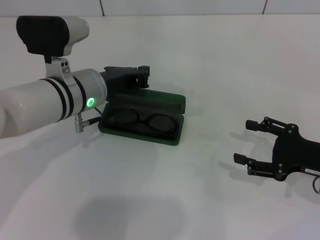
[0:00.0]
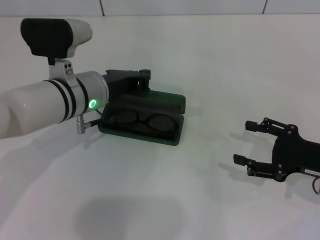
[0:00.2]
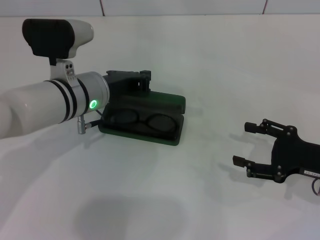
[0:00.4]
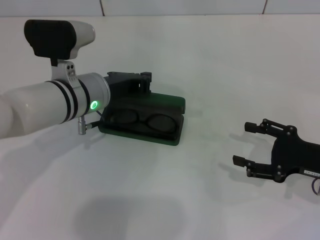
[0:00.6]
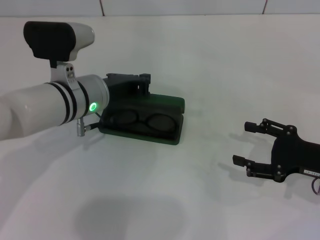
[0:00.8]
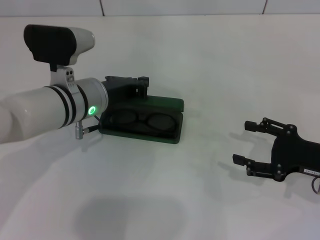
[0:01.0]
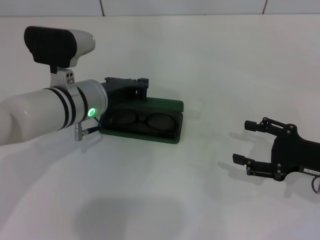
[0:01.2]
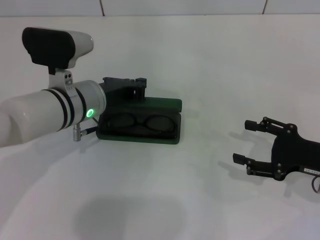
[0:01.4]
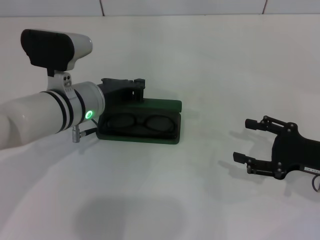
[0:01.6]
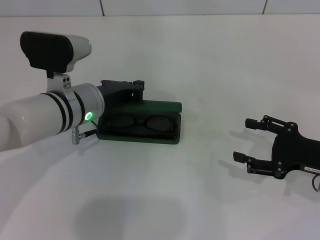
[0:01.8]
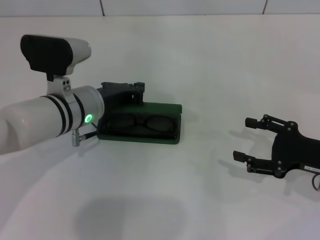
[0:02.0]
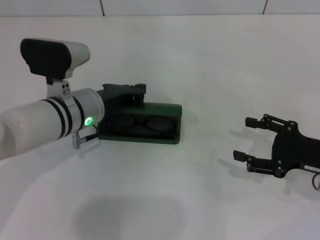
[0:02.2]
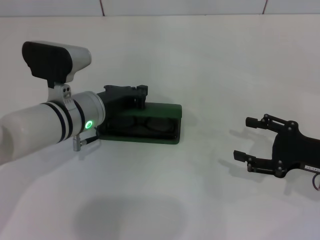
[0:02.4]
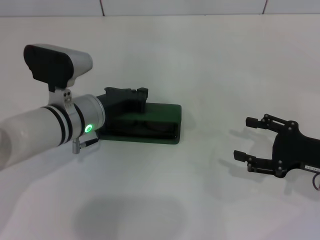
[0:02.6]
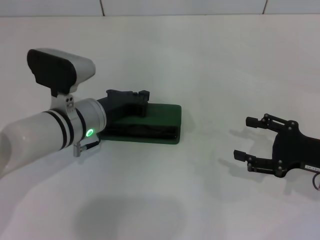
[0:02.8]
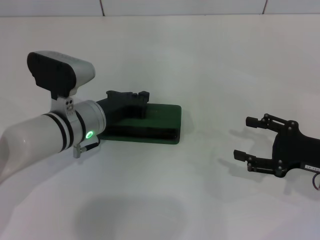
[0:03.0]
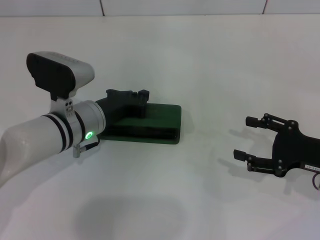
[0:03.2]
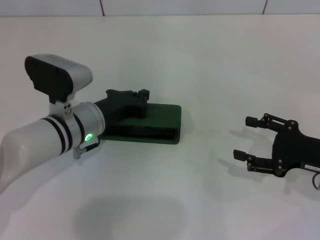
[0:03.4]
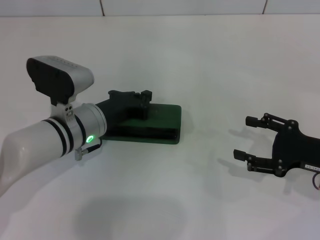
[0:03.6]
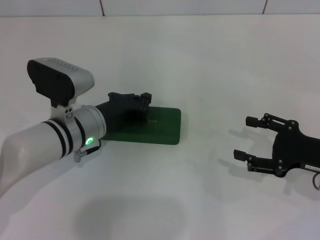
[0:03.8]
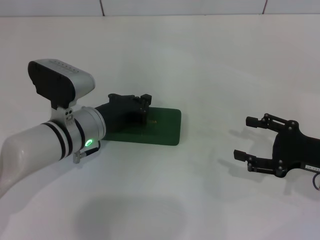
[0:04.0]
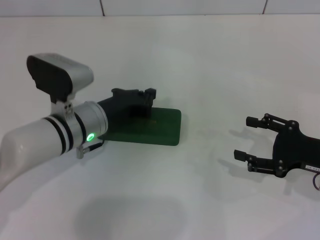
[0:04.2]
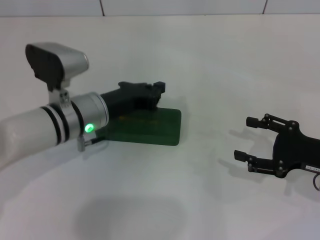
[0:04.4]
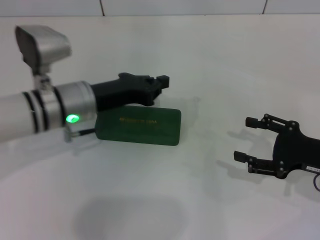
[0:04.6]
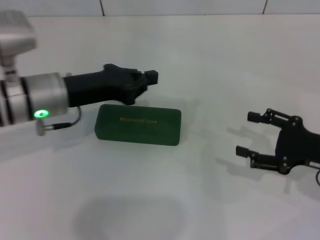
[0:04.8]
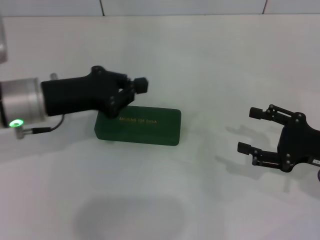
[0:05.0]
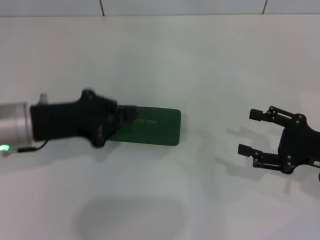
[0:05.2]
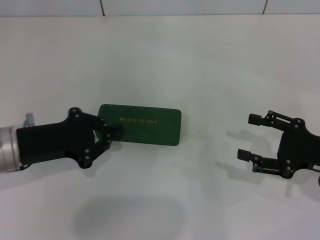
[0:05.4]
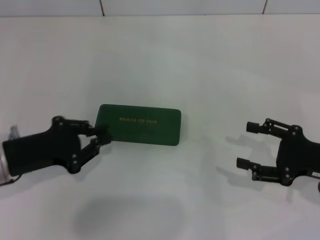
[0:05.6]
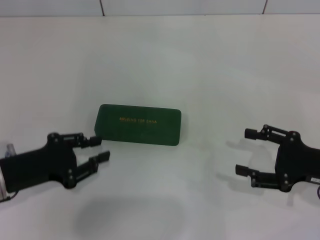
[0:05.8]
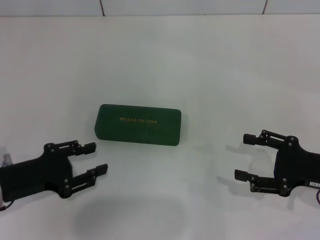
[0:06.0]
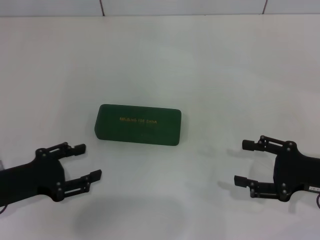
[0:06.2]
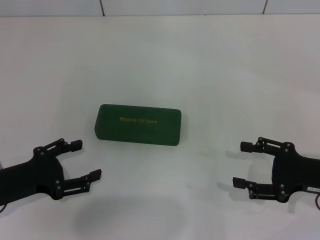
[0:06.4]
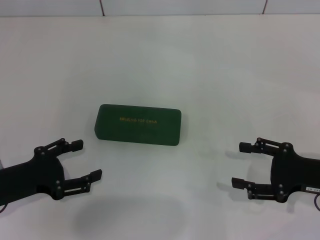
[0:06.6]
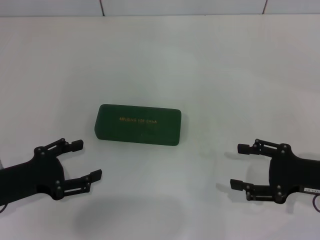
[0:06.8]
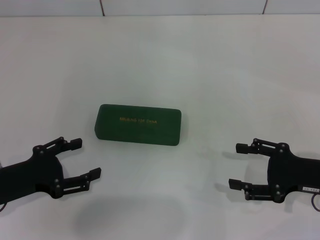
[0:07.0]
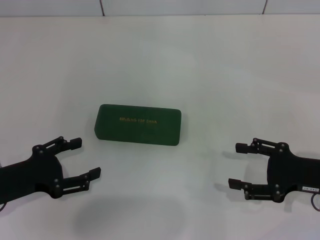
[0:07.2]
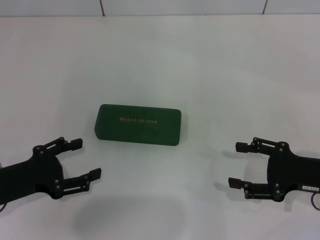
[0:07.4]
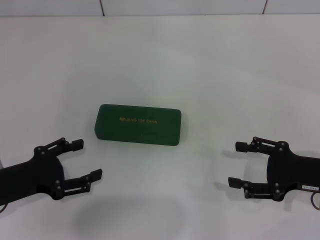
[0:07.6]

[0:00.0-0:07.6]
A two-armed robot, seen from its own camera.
Step, 0.0 to 4.0 s: Close the glasses case with your left hand.
0.0 to 3.0 s: The grippers stay close to where they were, moving slightly.
4.6 to 6.0 s: The left gripper heads to the left and backward, covering about 15 cm.
6.0 to 7.6 s: The left gripper opens.

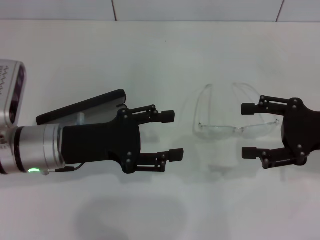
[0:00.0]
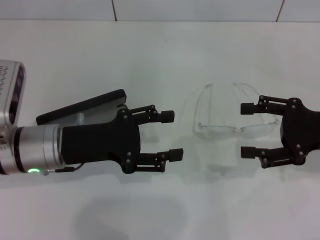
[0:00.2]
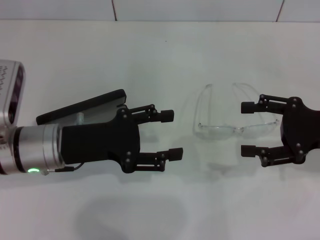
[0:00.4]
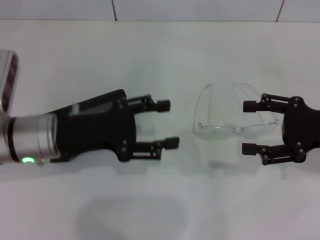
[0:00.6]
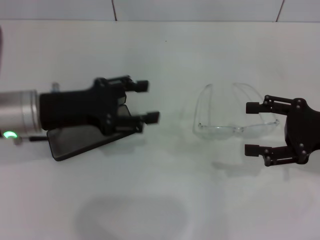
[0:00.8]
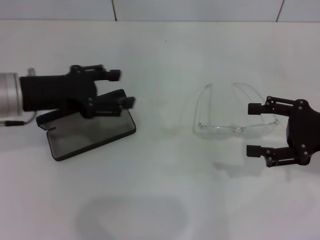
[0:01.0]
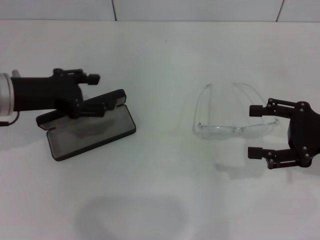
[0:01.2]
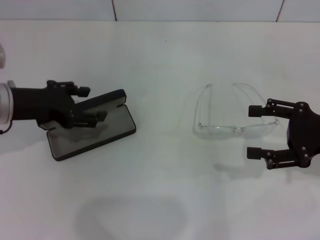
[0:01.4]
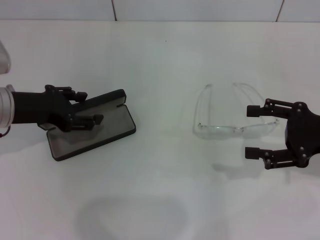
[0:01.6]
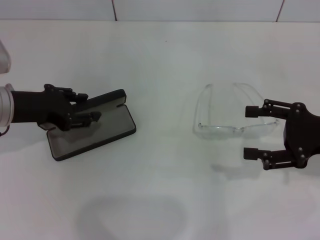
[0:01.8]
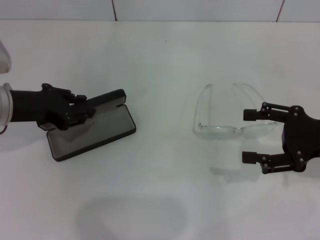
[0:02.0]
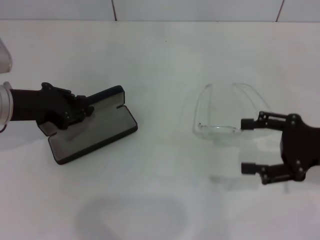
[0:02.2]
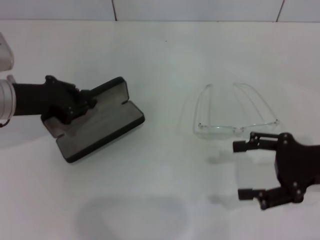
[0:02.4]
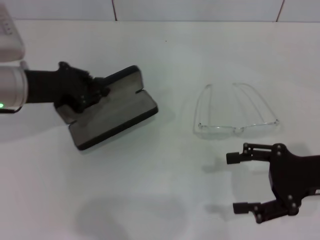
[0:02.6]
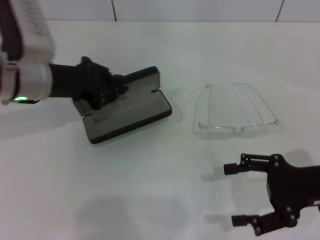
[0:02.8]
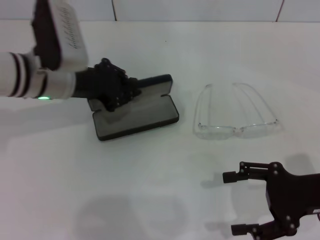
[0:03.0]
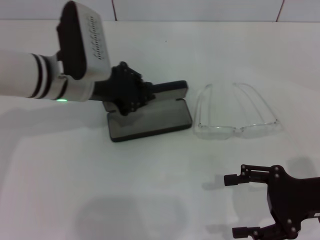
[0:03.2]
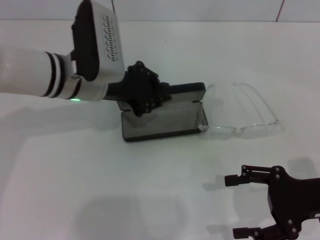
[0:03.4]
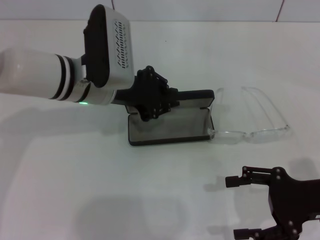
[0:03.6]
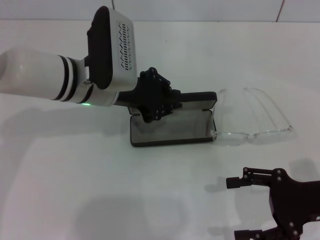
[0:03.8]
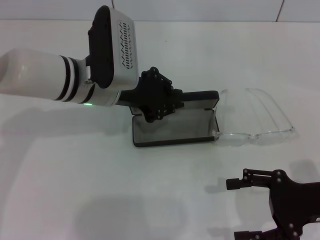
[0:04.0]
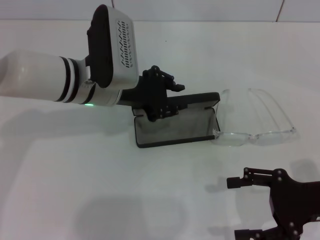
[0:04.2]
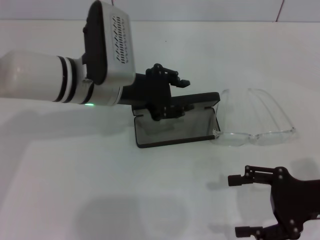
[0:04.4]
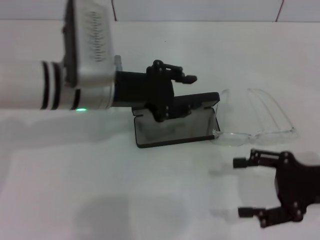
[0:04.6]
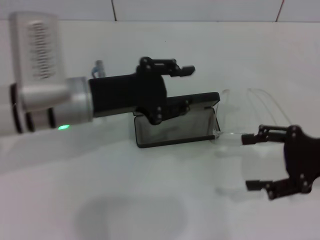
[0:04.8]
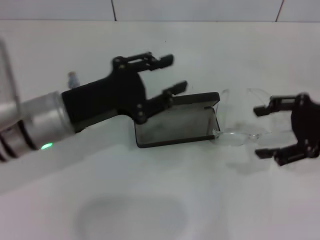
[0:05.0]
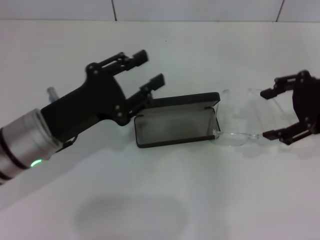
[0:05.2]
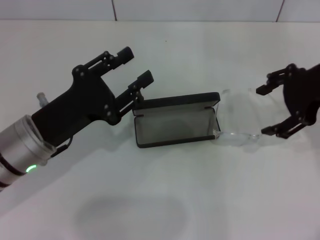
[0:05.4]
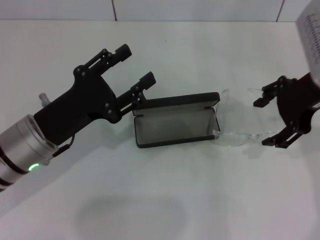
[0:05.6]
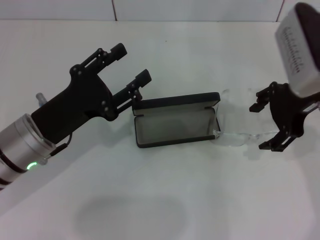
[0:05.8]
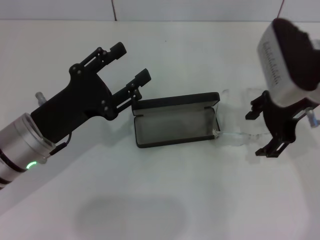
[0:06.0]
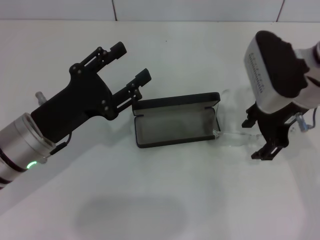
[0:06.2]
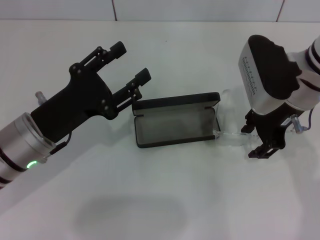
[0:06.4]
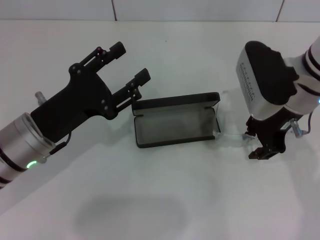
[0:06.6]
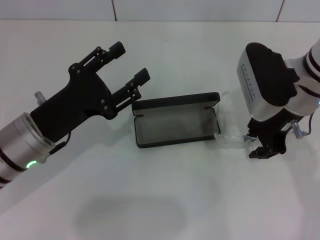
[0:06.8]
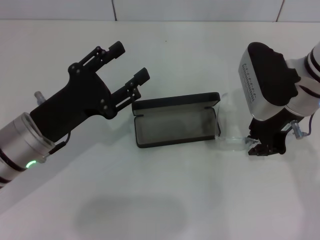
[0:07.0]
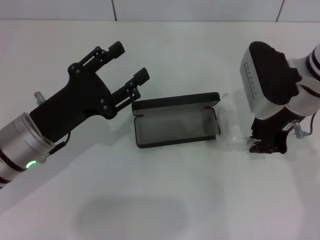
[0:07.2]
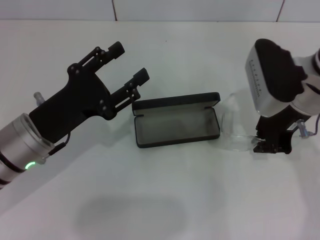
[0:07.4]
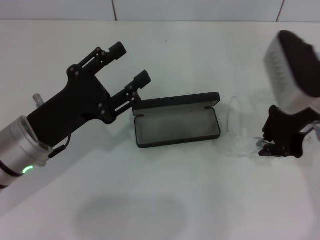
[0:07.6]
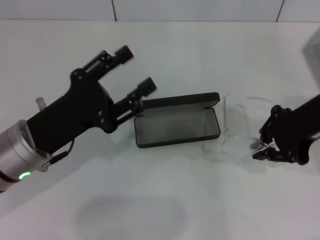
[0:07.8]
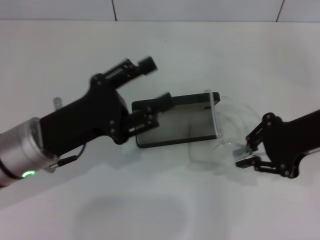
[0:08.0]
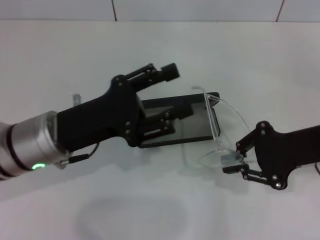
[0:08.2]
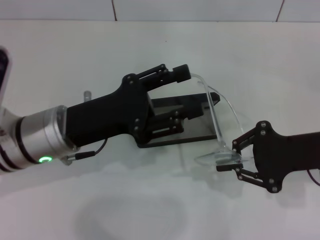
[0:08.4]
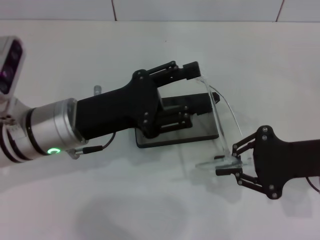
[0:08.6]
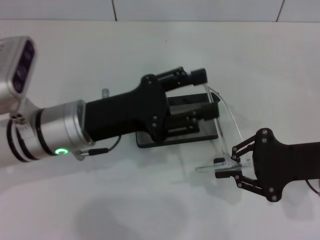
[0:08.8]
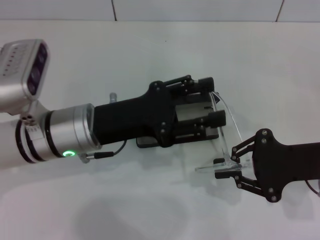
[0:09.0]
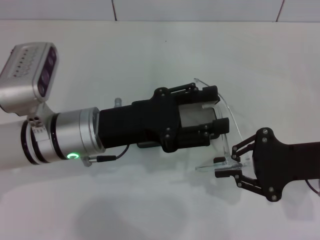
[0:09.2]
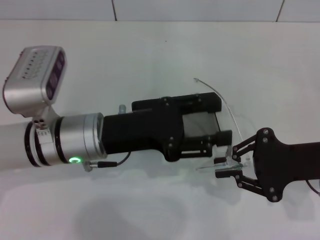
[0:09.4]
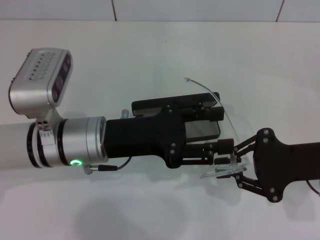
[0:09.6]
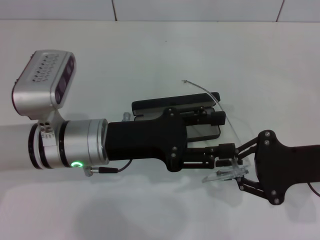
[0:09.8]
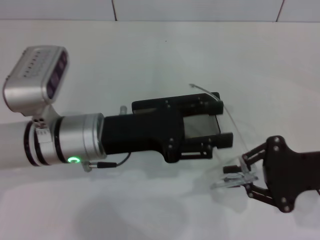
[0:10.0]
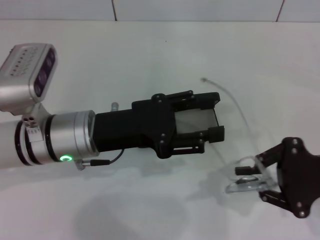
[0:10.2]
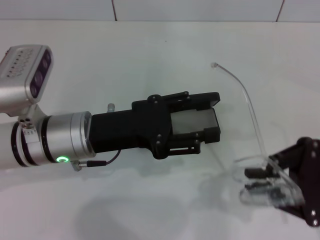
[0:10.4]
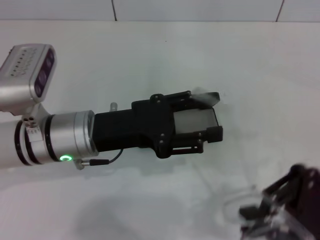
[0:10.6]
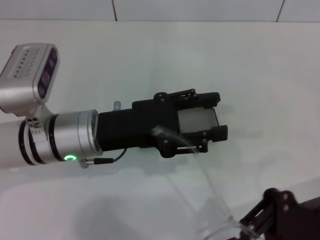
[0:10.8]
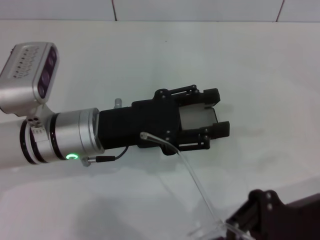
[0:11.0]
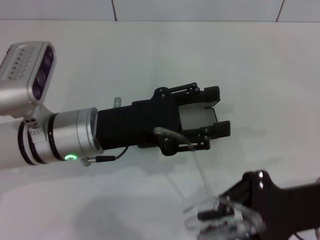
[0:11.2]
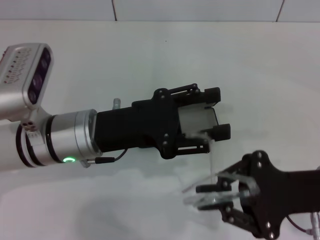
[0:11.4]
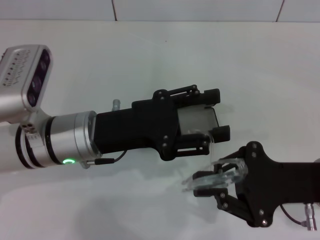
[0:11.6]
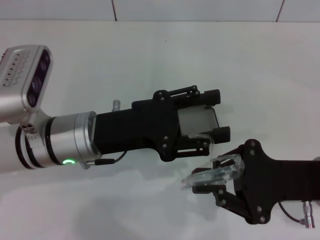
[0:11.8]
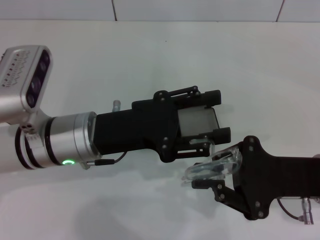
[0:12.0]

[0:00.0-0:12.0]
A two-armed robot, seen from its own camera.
Step, 0.0 to 2.0 s: Grab the glasses case with your left hand.
Step, 2.2 to 4.0 s: Place the glasses case in the center of the table with your left hand.
Step, 4.4 to 7.2 s: Grab the eyeglass frame with your right hand.
0.0 to 1.6 s: The left gripper is displaced to the left by roughly 5 cm.
1.6 to 3.0 s: The left gripper travels to the right by about 10 cm, and closes up. Meanwhile the right gripper moves roughly 5 cm.
3.0 to 4.4 s: The left gripper moves to the right, approximately 5 cm.
4.4 to 6.0 s: The right gripper moves forward, upward and to the left, about 20 cm, while the left gripper moves backward and to the left, about 15 cm, and opens.
6.0 to 7.6 s: The right gripper closes its fingers.
7.6 to 9.0 s: The right gripper shifts some 10 cm backward, downward and to the right; the left gripper moves to the right, about 5 cm.
9.0 to 10.4 s: The grippers move only a little.
10.4 to 12.0 s: The right gripper is displaced to the left by some 5 cm.

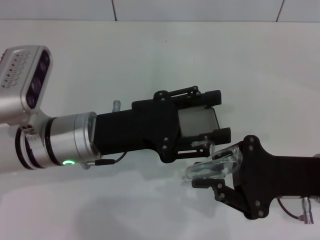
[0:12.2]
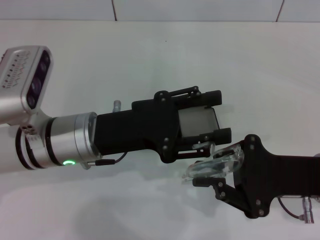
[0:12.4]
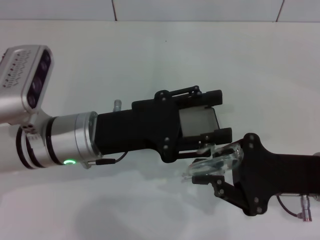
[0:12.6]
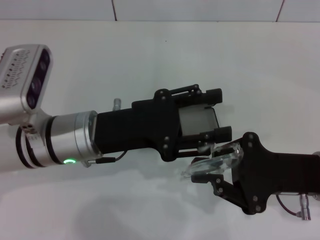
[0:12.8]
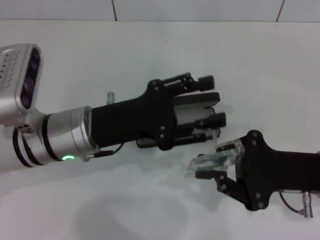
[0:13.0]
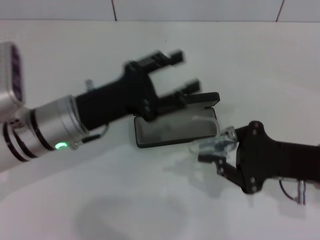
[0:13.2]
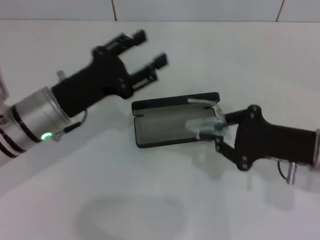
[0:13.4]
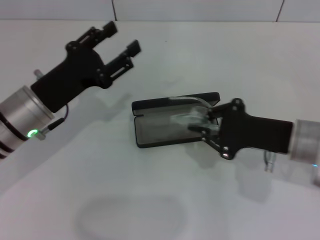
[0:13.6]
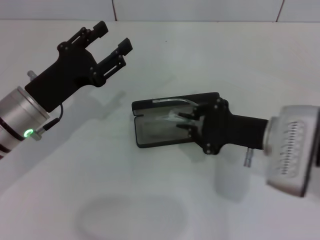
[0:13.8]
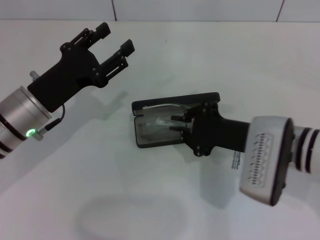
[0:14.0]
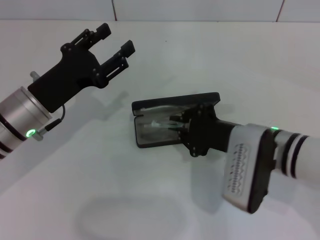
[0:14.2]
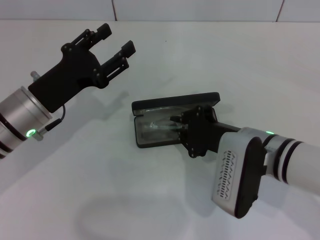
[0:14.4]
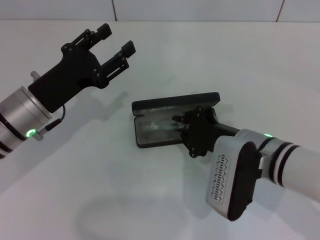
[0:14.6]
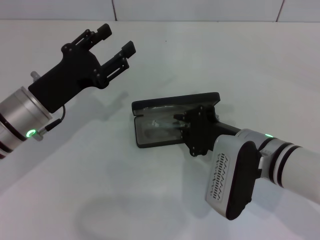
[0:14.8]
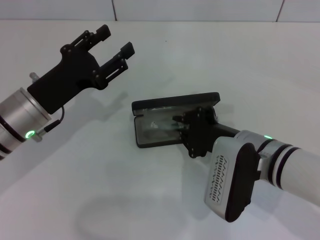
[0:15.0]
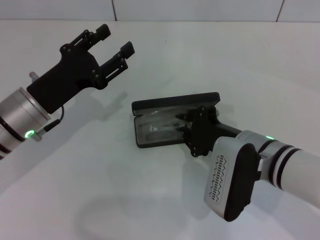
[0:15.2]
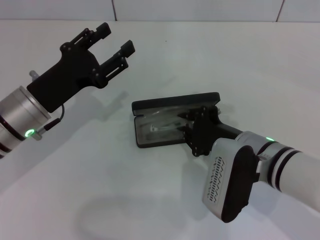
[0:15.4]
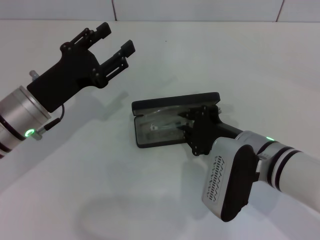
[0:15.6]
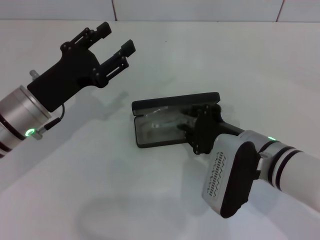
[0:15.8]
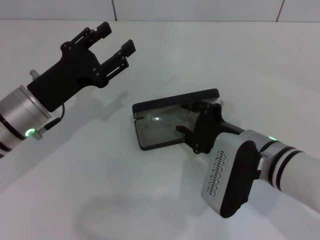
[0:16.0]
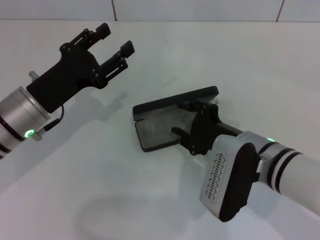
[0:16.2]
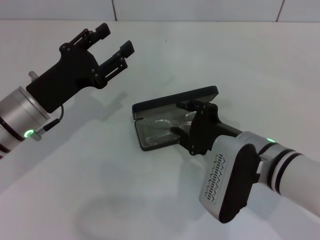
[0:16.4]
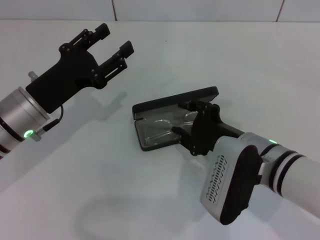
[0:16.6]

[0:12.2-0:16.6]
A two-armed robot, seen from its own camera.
12.2 to 13.6 s: The left gripper moves to the left, about 5 cm.
13.6 to 15.2 s: The right gripper travels to the left by some 10 cm.
15.2 to 16.6 s: The right gripper opens.
